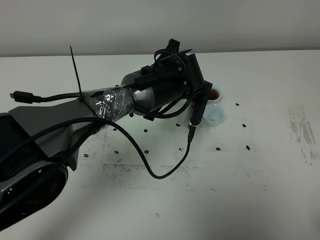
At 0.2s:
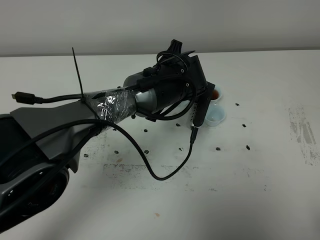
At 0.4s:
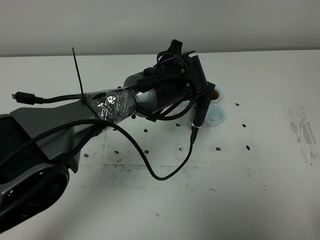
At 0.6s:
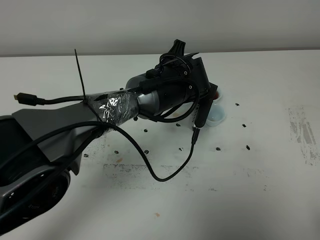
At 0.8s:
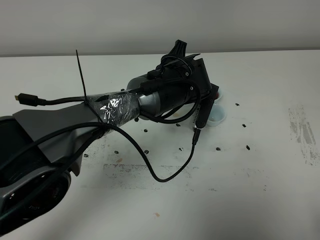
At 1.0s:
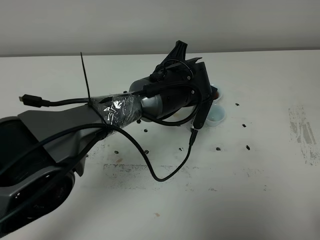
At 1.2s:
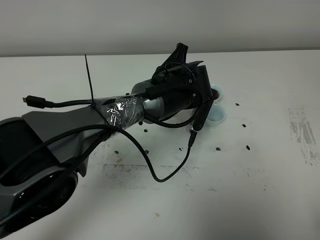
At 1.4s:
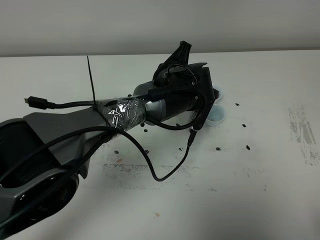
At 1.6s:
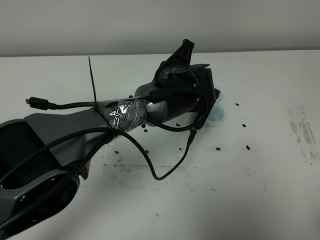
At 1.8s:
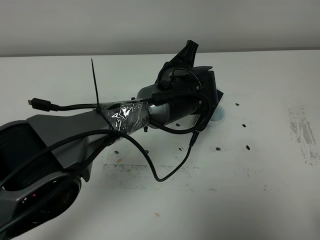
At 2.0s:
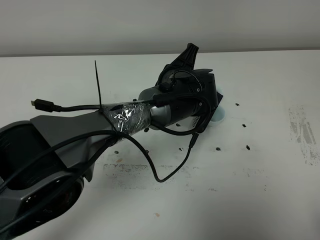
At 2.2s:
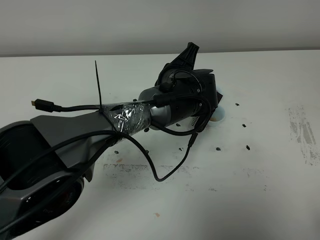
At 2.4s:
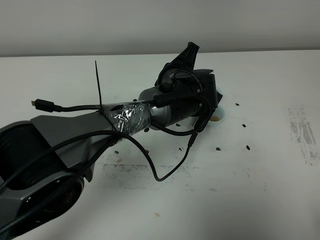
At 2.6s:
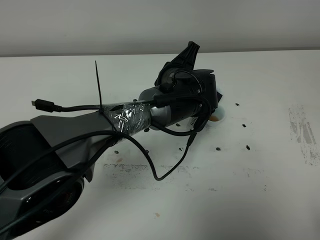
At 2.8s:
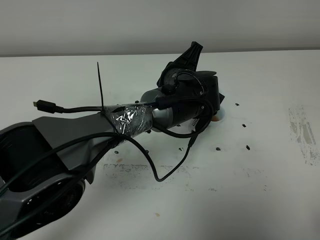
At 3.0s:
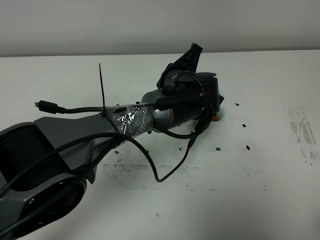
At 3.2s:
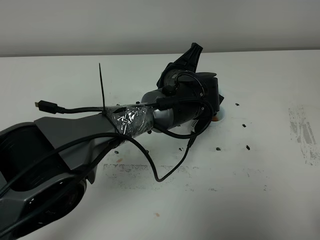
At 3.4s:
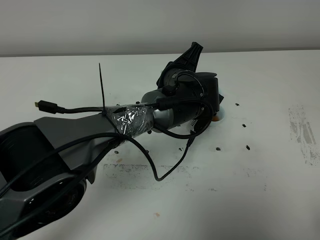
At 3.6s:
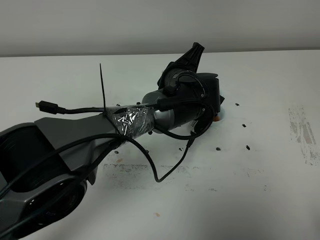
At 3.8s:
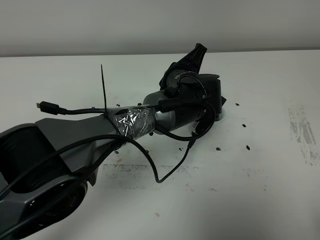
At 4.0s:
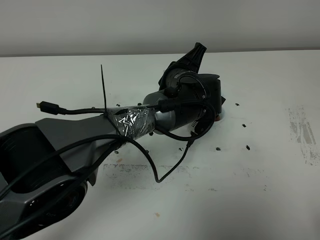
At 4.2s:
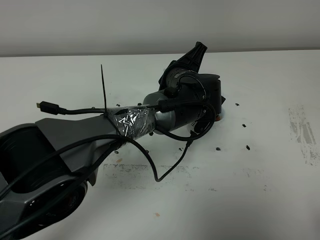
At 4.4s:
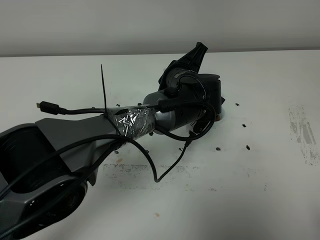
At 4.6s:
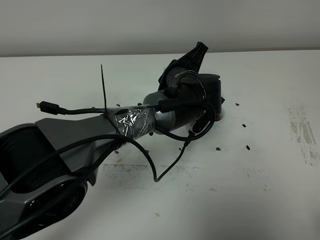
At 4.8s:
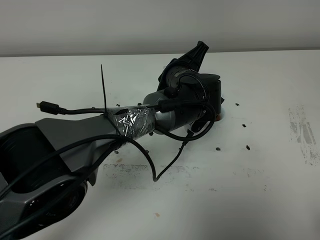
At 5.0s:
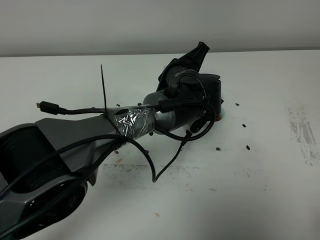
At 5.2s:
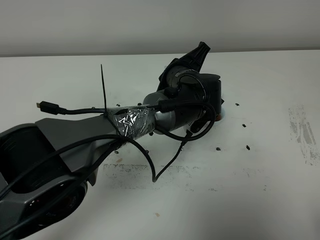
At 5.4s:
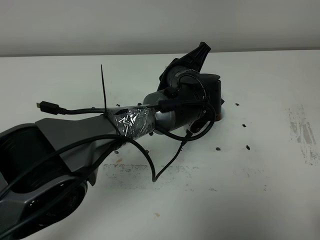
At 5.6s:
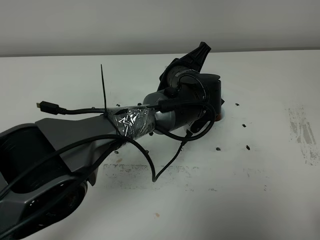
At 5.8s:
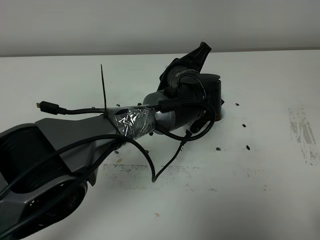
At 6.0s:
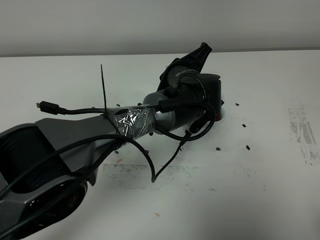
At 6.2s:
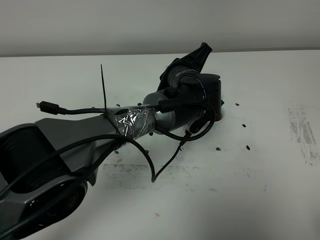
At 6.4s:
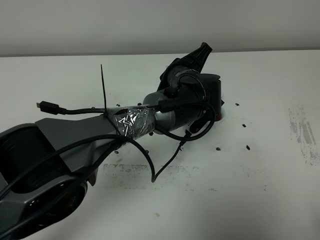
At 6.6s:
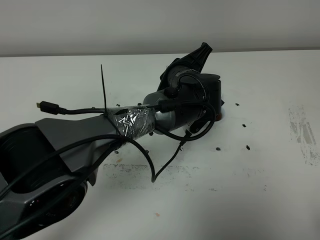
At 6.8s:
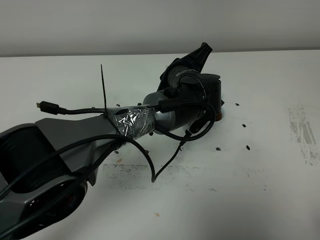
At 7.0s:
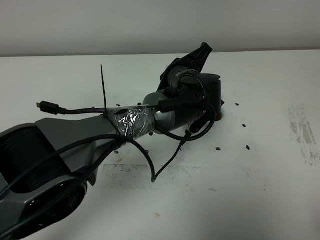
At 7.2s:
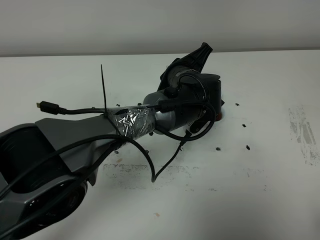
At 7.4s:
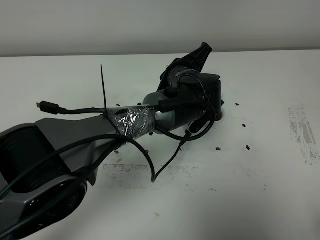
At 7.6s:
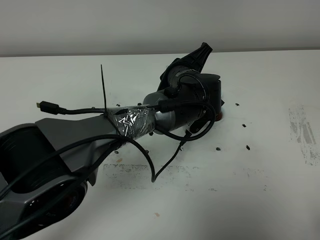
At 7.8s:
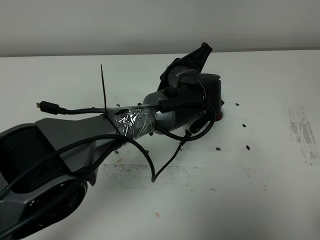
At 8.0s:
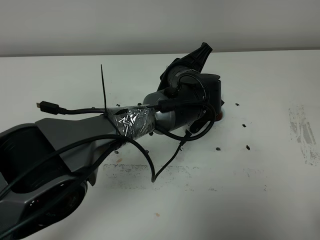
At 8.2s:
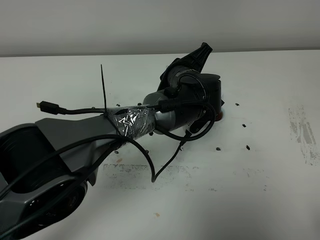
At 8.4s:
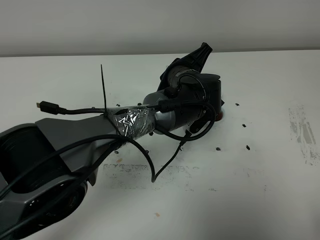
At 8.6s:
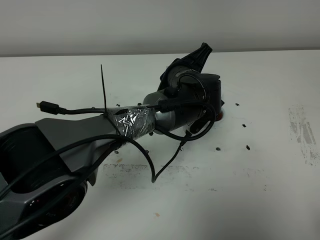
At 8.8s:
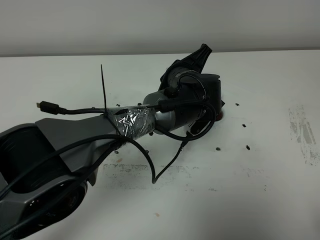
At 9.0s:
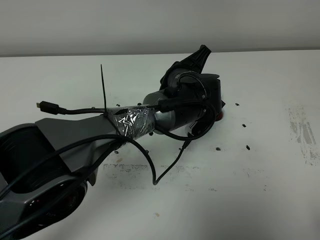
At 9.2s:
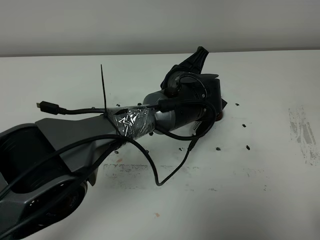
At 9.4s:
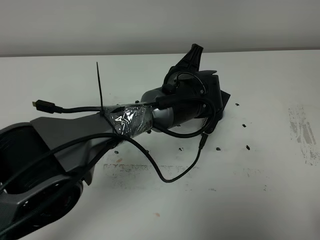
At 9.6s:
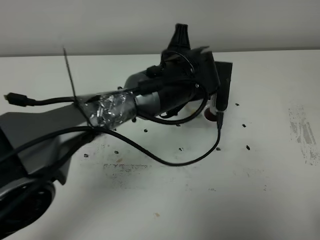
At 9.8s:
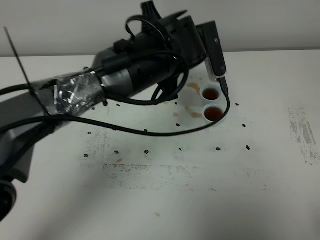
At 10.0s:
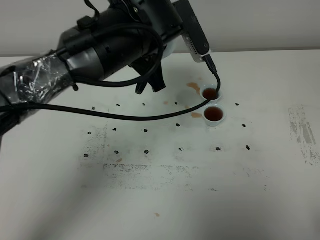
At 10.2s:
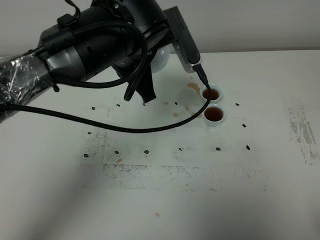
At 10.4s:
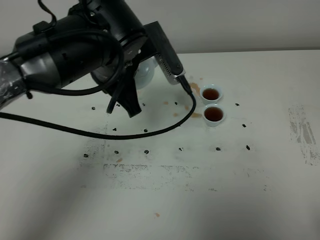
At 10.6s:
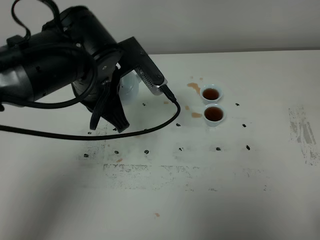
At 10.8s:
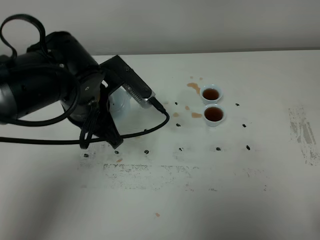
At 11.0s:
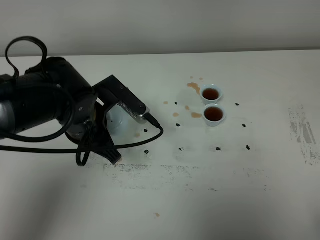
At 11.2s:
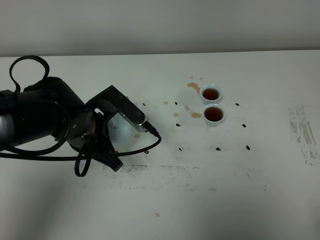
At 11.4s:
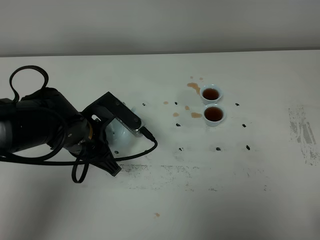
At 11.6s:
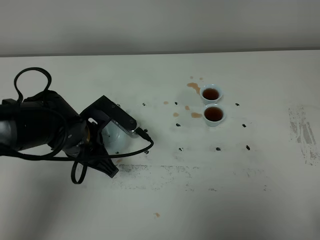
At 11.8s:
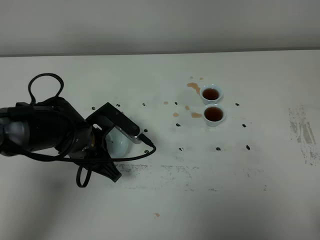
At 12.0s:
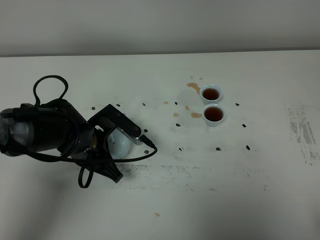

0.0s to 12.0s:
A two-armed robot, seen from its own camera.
Task of the whole recording: grasp the blue porcelain teapot and pour the tea into the two blue porcelain teacups one by one, put the blue porcelain teapot back in its original place.
Step, 0.0s to 9.4s: Pour tea into the teacup with the left gripper.
0.0s to 1.6s: The grippers stay close to where they were, moving slightly.
1.6s to 3.0s: Both grippers stay put.
3.0s to 4.4s: The two grippers keep their place.
4.4s to 6.0s: The grippers make only small movements.
6.0s to 9.0s: Both grippers stay about where they are.
9.0s to 10.4s: The left gripper travels to the left, upward and backward by about 15 cm.
10.4s to 12.0s: The left gripper heads downward and to the left, covering roughly 20 cm.

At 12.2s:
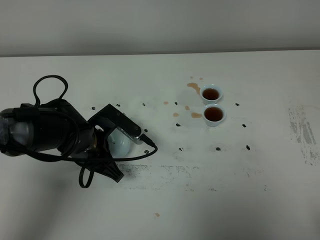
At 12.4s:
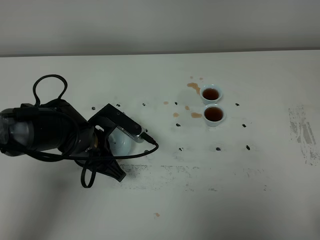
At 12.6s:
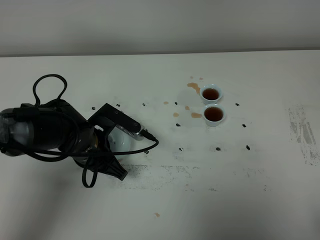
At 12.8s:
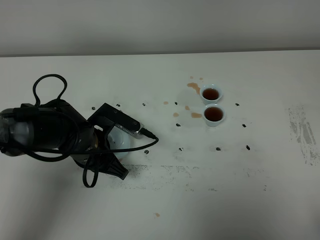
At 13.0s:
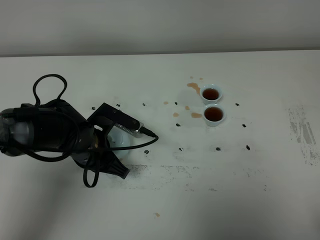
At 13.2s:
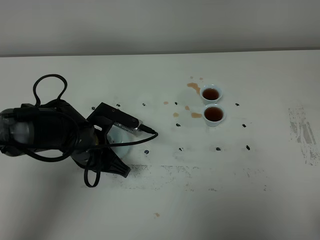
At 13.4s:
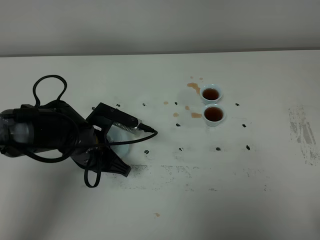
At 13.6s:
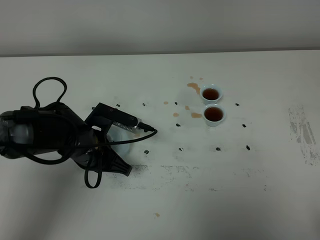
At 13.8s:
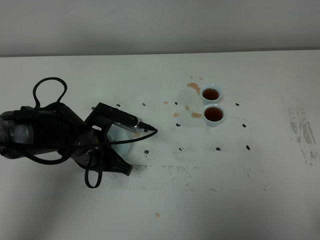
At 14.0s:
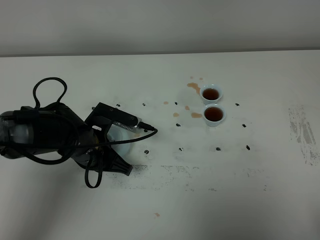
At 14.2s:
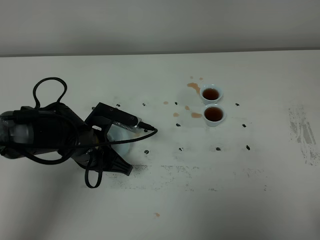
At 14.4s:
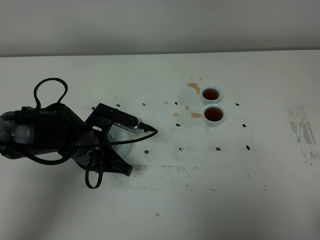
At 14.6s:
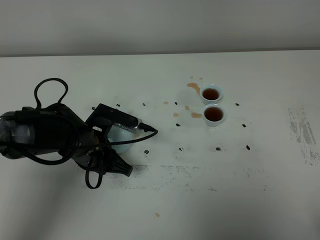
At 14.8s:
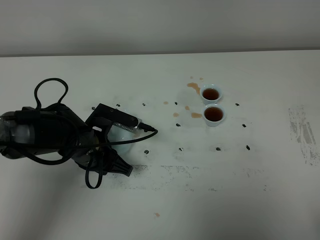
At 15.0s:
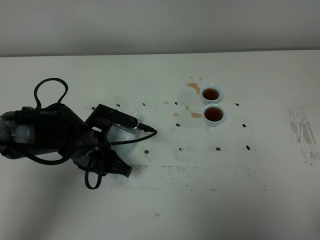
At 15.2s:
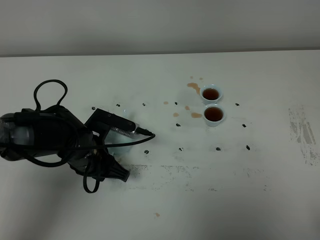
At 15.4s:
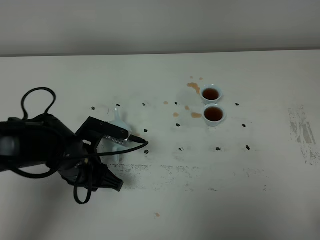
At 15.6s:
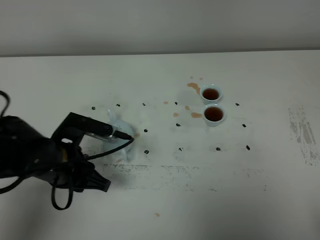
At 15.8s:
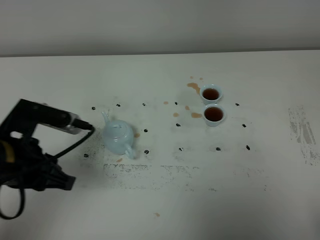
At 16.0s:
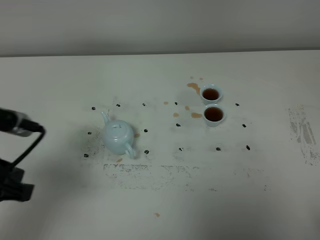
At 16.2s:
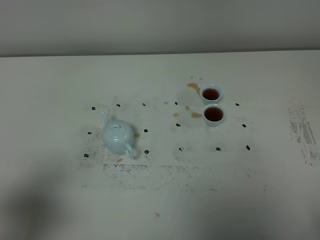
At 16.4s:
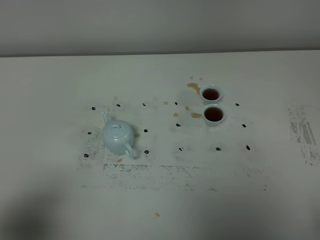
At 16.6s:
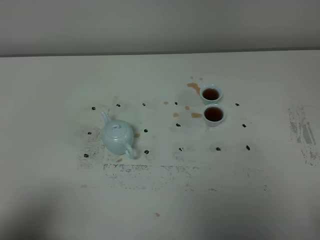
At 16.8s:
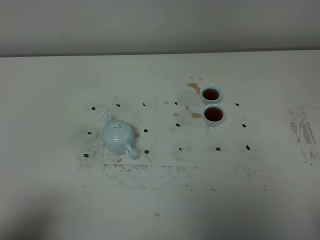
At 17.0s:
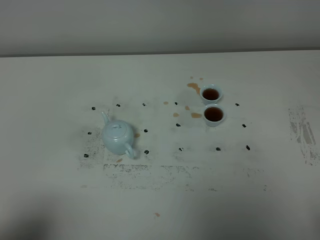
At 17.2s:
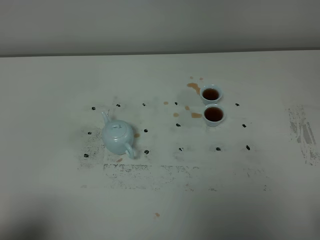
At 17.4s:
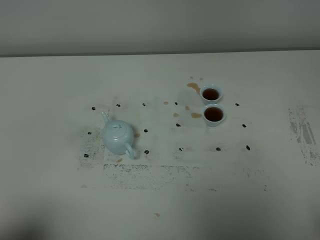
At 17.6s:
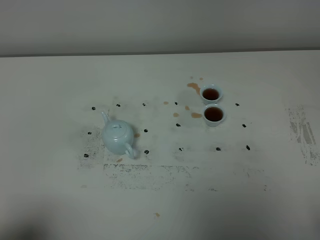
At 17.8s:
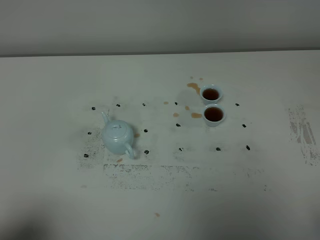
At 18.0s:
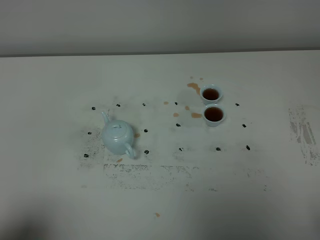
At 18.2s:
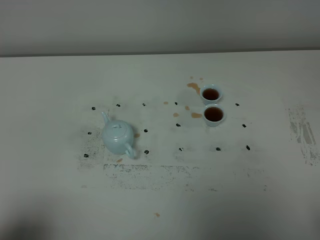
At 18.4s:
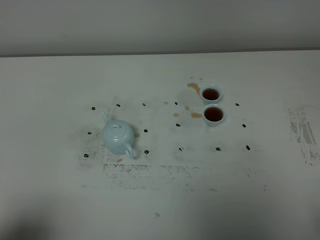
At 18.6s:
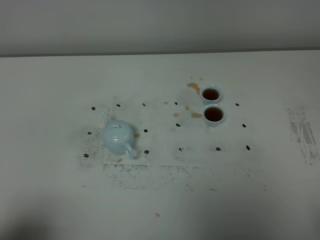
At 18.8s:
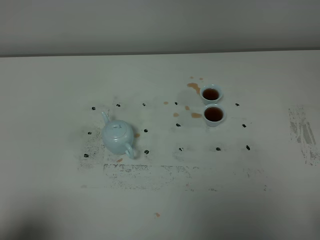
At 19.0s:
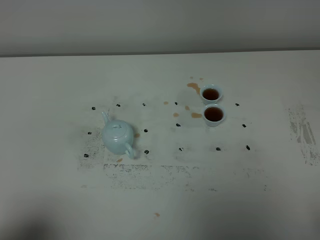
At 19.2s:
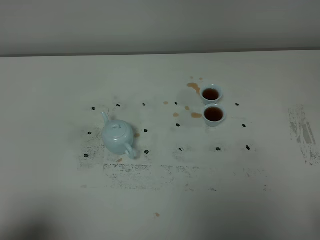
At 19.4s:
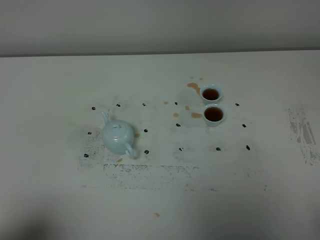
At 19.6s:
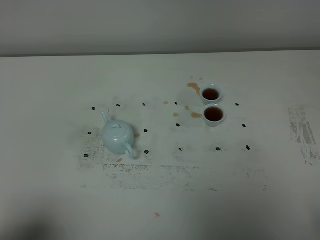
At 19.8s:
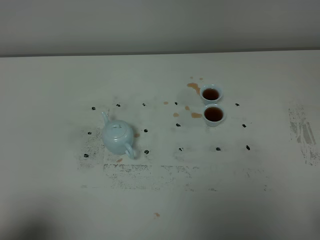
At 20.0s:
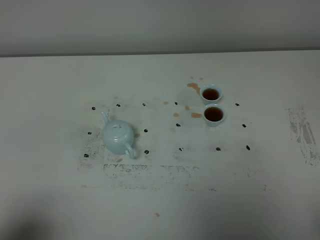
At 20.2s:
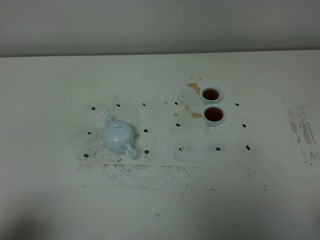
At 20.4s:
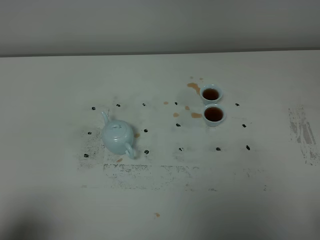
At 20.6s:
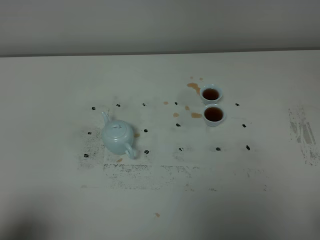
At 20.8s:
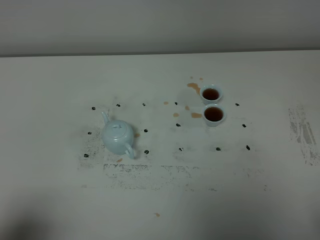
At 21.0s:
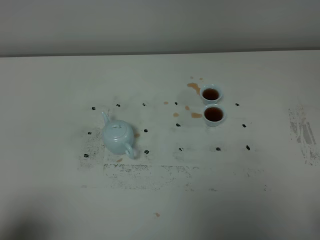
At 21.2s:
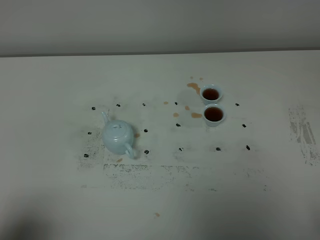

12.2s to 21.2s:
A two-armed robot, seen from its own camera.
Task of the whole recording: grasp the blue porcelain teapot and pour the tea into the two blue porcelain teacups one by one, put the blue porcelain teapot back in its original place.
12.2s to 13.8s: There are only small adjustments of the grippers.
13.8s to 15.2s: The left gripper opens its fingers.
15.2s to 16.6s: The left gripper is displaced backward, upward and to the left by roughly 35 cm.

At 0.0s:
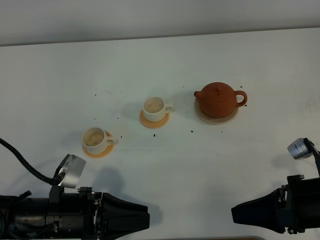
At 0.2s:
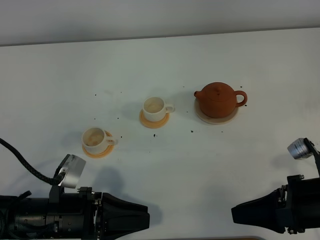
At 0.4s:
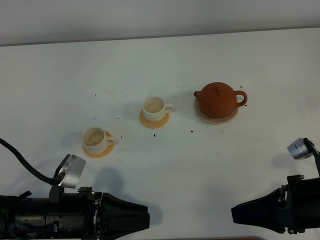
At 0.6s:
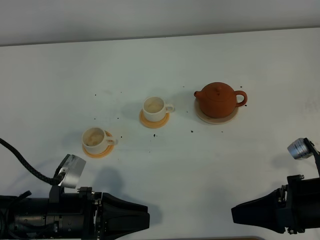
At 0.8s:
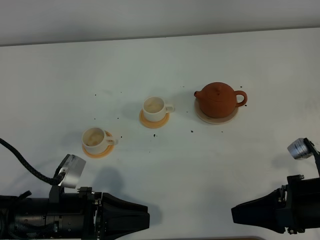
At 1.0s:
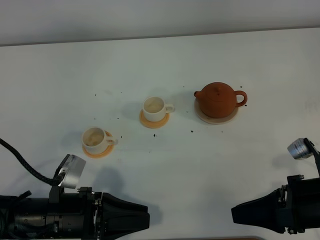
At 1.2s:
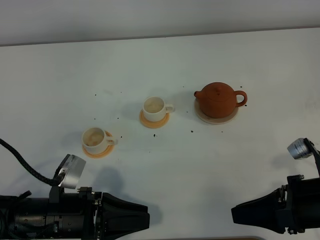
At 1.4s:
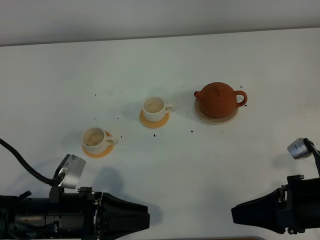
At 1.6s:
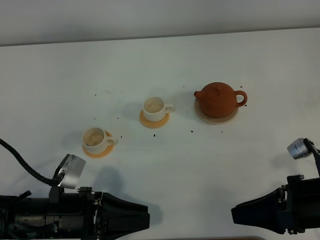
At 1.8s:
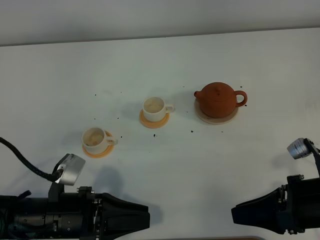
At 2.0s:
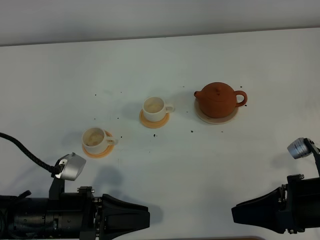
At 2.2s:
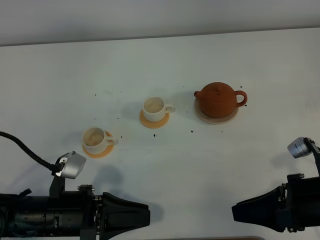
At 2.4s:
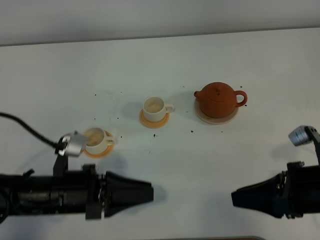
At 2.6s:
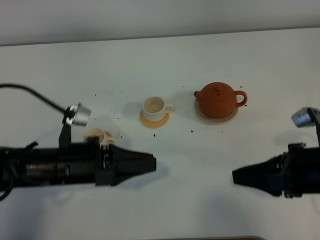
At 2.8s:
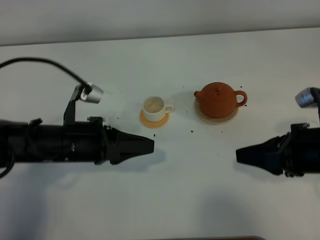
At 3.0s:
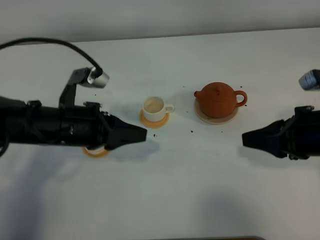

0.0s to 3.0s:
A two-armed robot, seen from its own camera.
Task of the whole recording: grasp the brown teapot and pour the tea into the two white teacups one by one, put the brown teapot back in its original place.
0.0s to 1.6s: Neither gripper changes place.
1.6s to 3.0s: The right gripper heads forward and upward, covering roughly 10 cm; the left gripper shifts roughly 15 cm forward and upward.
